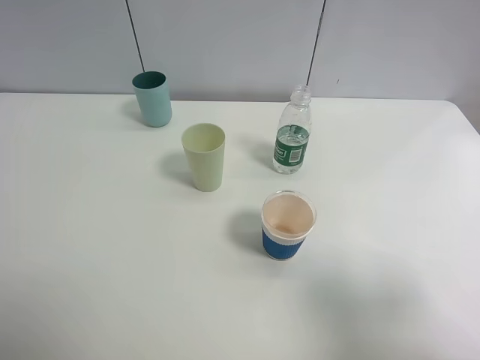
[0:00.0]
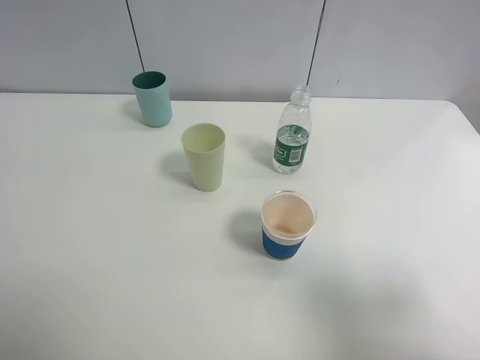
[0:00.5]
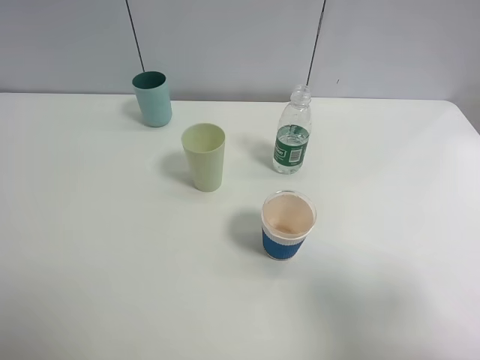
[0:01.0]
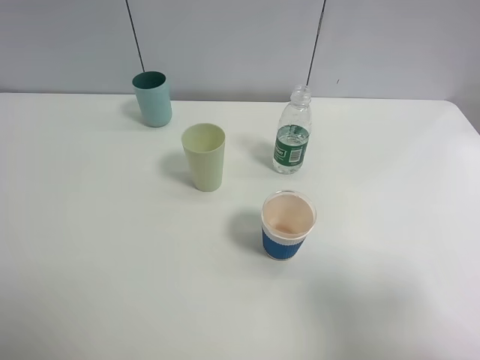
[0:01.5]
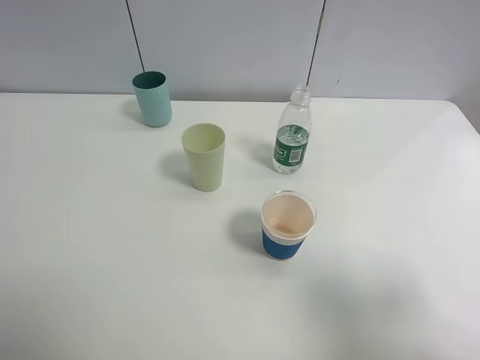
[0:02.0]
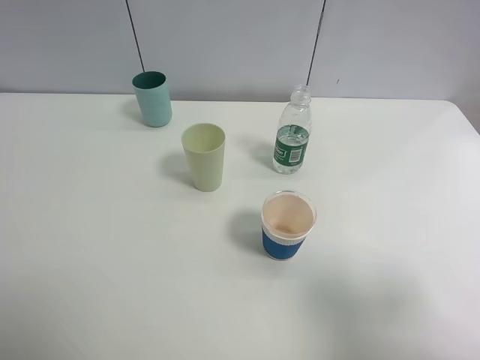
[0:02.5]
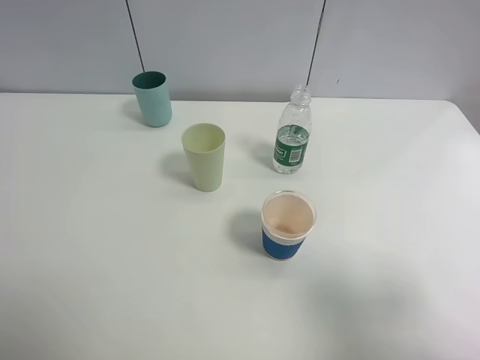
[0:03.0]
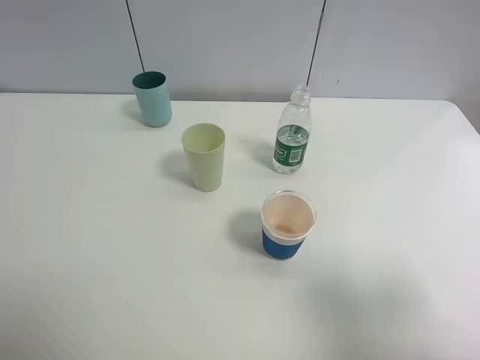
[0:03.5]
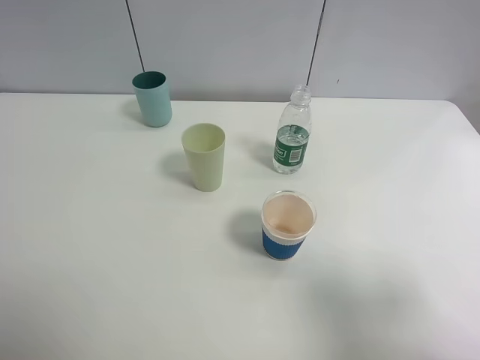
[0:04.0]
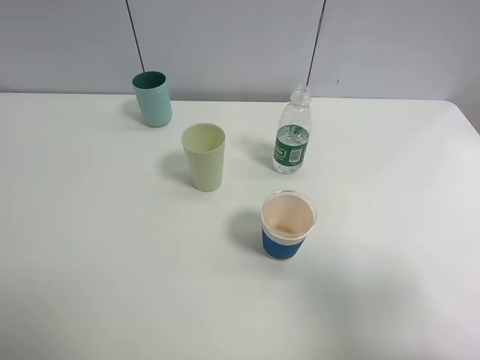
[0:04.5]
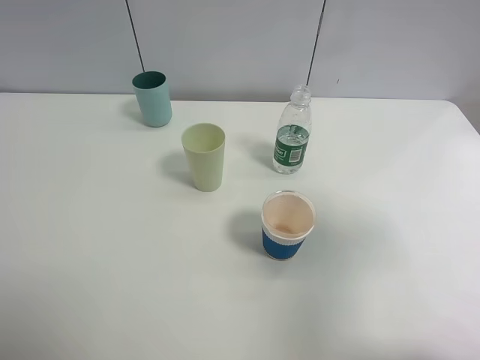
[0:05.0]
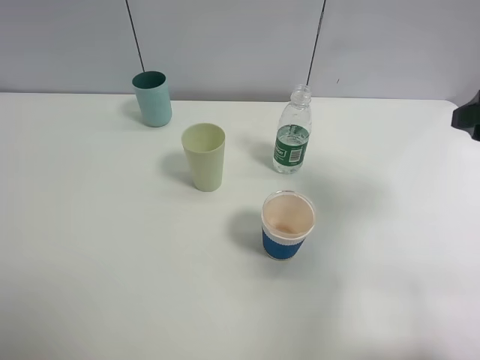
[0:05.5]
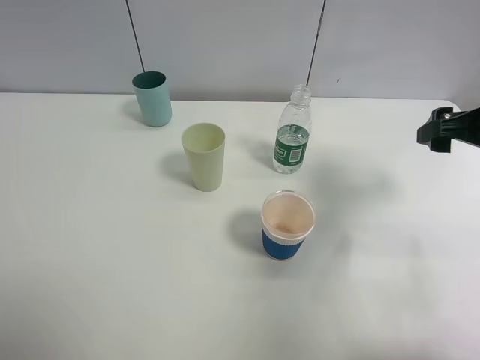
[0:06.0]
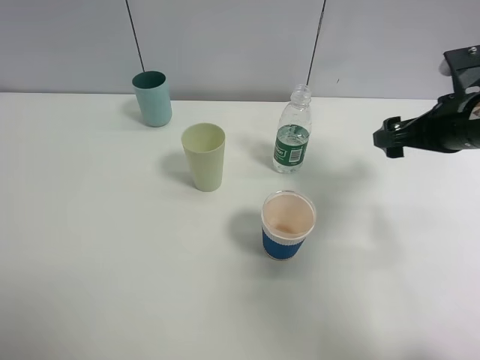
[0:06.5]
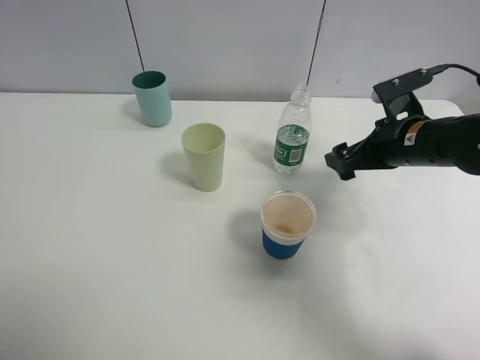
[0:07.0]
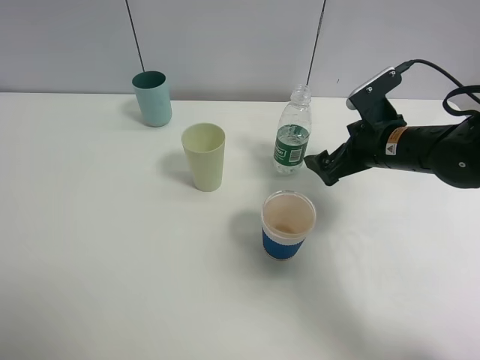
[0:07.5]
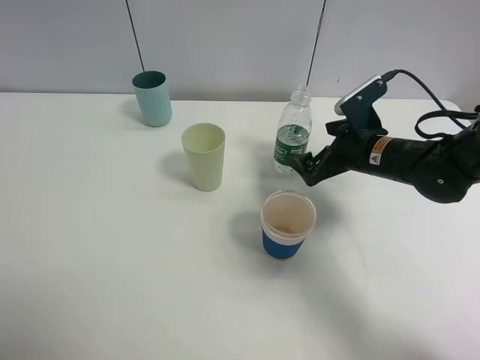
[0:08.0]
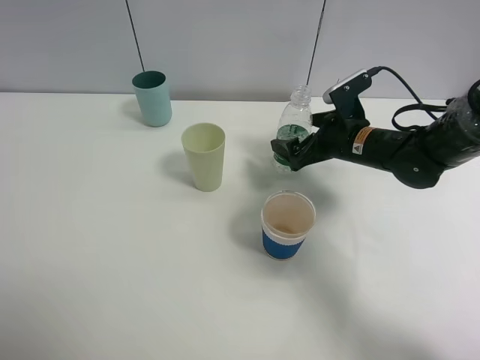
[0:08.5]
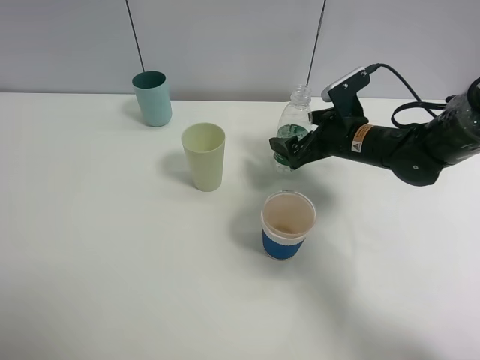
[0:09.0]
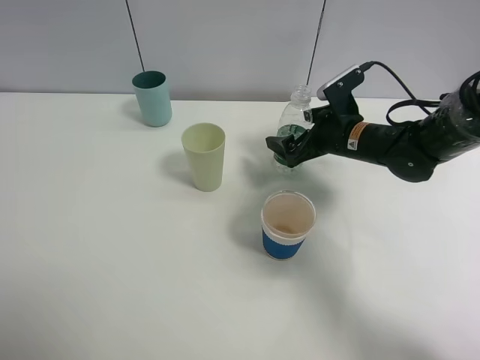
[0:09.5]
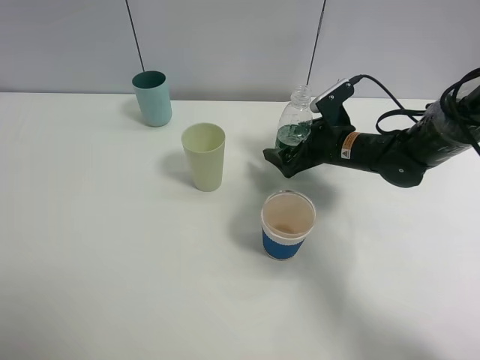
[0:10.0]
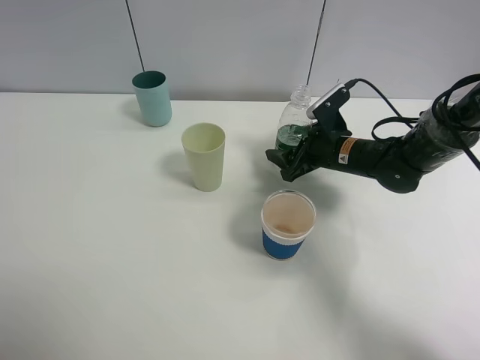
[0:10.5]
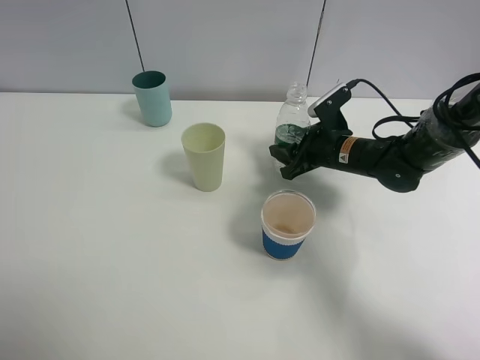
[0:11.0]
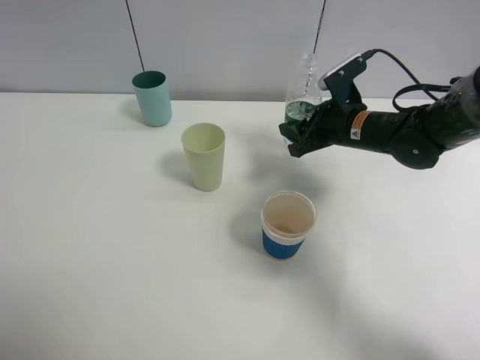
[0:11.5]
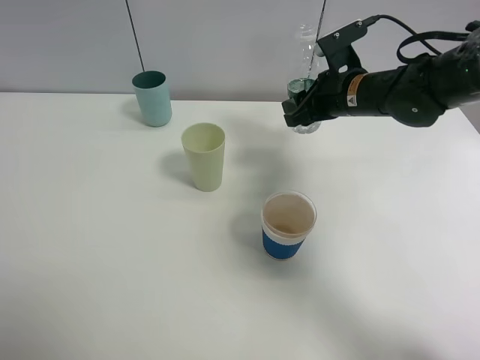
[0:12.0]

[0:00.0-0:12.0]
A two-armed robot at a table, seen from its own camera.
Task of the whole recording: use a clamp to hold the bottle of the drink, pour the beverage into a random cup, then clamp the cup containing the drink and pour the drink into another random cup.
Step, 0:00.0 to 0:11.0: Pick up the water bottle with right gripper.
0:00.0 to 0:04.0: Both grippers stay about where they are.
0:04.0 to 0:06.0: The right gripper is displaced forward by approximately 25 cm.
0:06.0 to 0:08.0: The right gripper travels downward, to the left and forward by roughly 20 cm.
0:08.0 to 0:10.0: The right gripper moves about 5 cm.
0:10.0 to 0:12.0: The right gripper shifts approximately 10 cm upward, and closes.

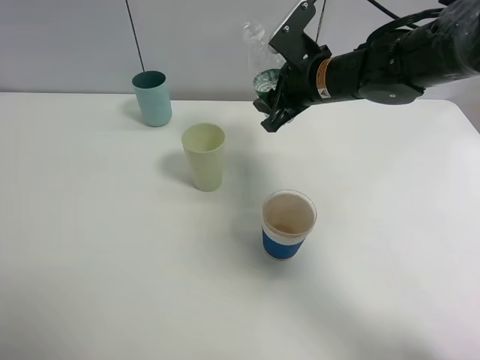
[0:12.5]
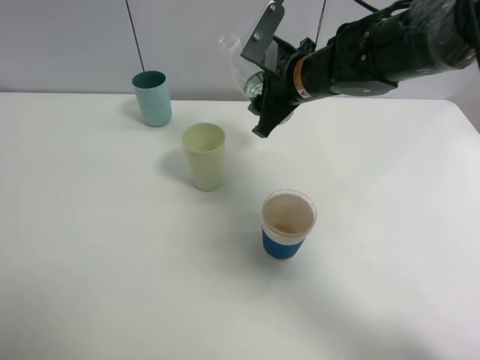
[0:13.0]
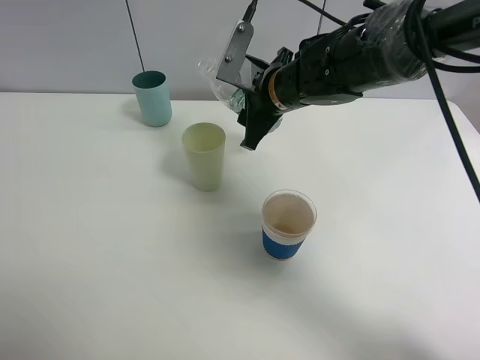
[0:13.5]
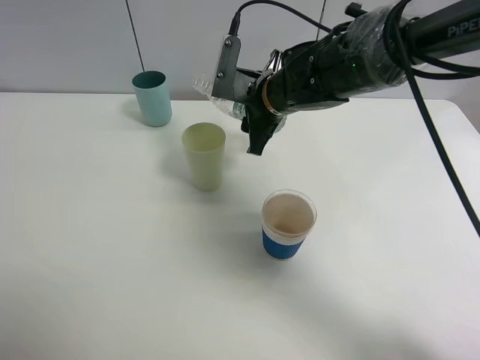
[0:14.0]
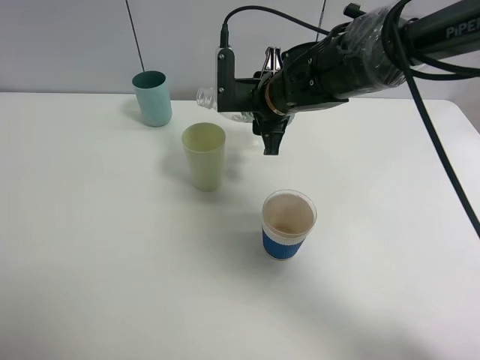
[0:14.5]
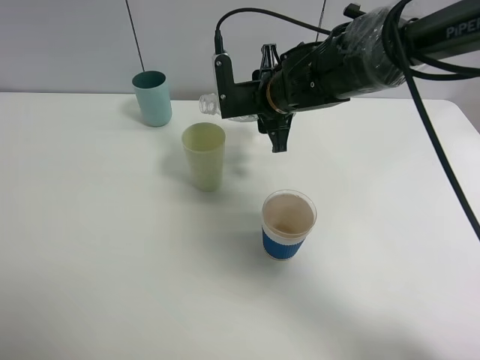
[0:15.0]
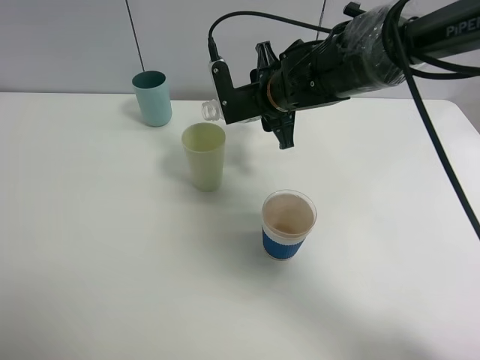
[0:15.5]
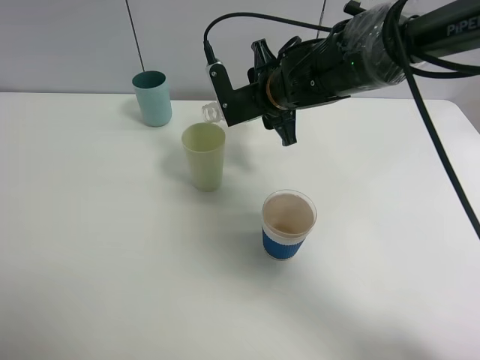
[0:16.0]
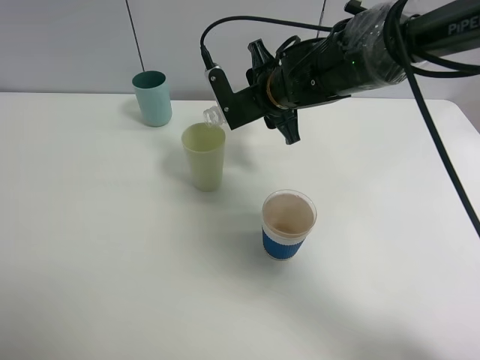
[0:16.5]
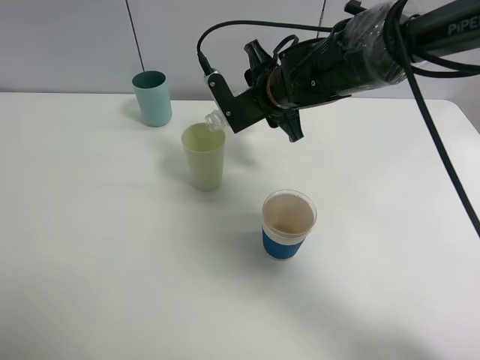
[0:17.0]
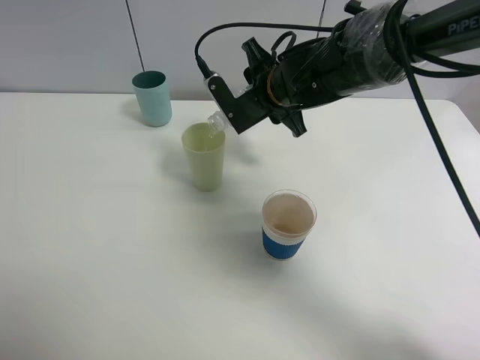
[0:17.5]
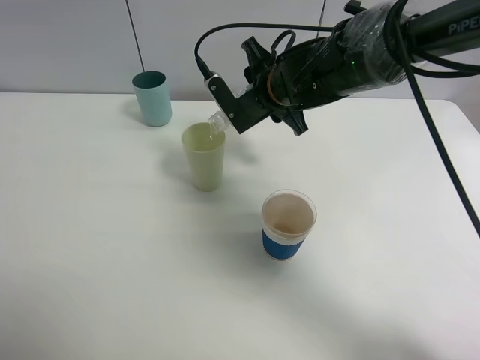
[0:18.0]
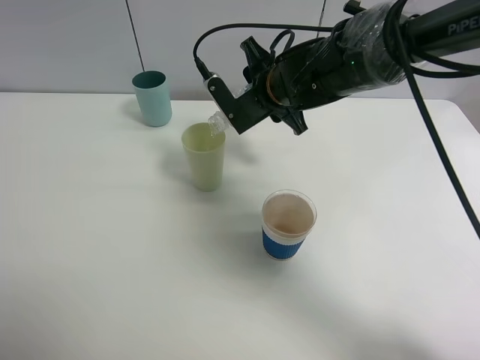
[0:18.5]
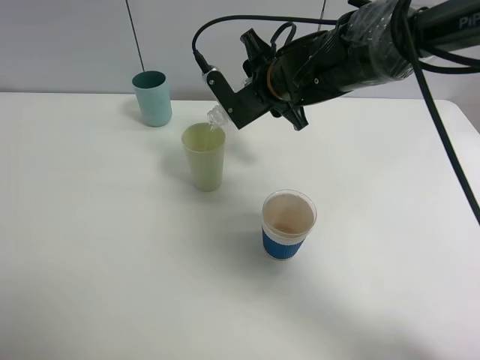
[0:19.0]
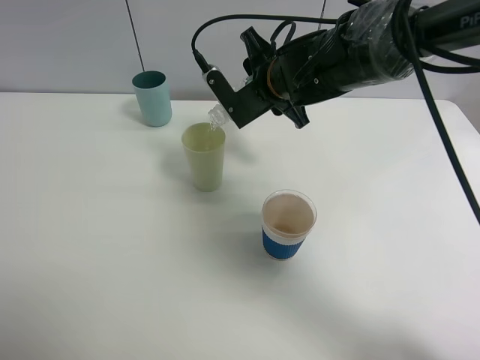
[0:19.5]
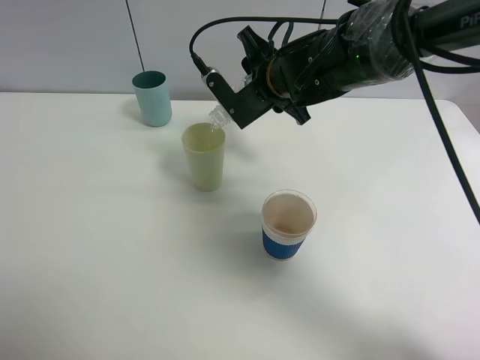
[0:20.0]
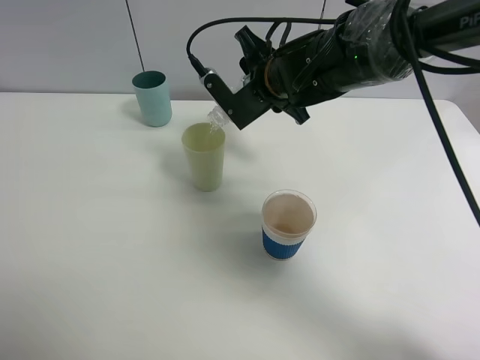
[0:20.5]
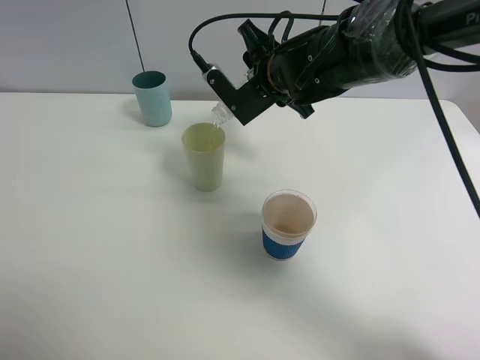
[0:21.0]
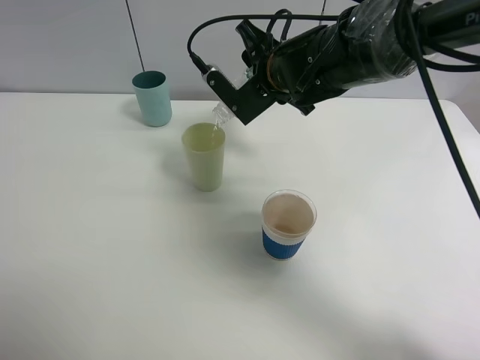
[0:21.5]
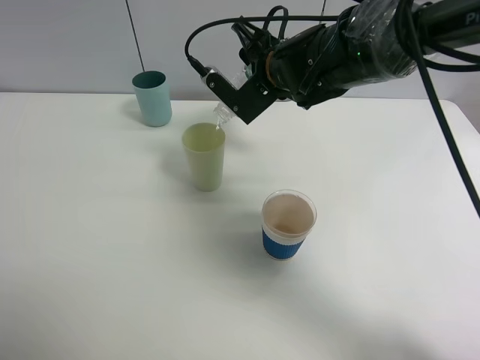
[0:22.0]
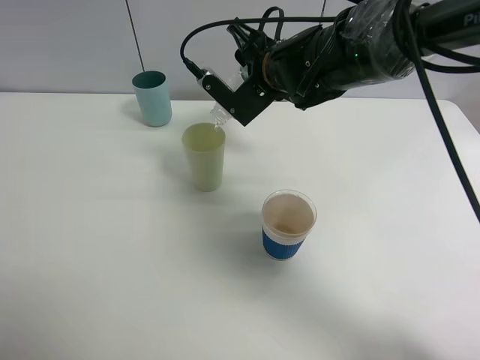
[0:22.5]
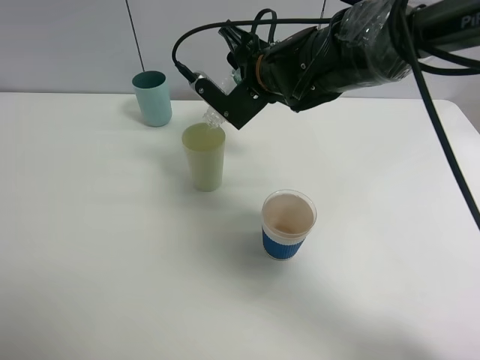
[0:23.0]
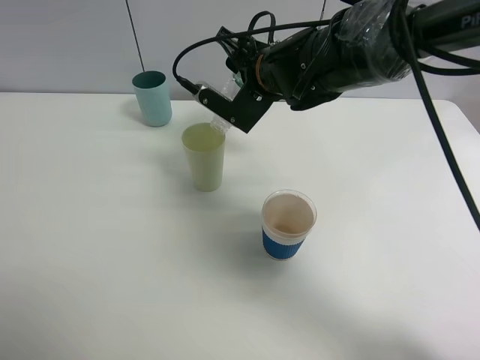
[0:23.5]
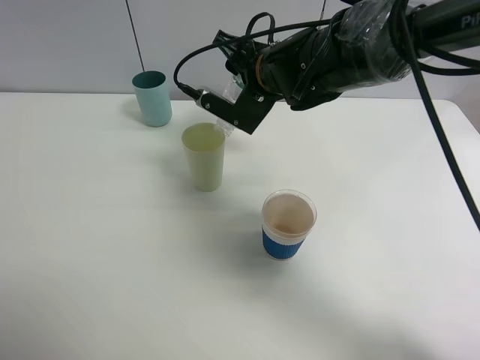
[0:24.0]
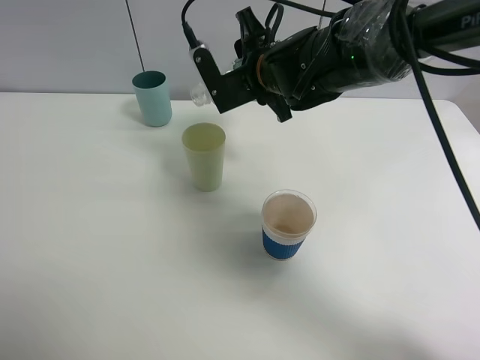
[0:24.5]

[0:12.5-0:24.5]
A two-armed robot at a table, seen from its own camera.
Task of the whole recording: use a clamp to hold the bottle of the drink, pour the beverage into a random cup, then clamp the cup containing the drink and pour the drink into another random cup.
Step, 0:12.5 to 0:24.5: Pour water into the green plastic cup with right gripper.
0:12.5 to 0:14.5: The right gripper travels to the left by roughly 5 cm.
0:16.5 to 0:20.5: There are only small adjustments of the grippers.
0:20.5 to 0:22.5: The grippers make only small movements.

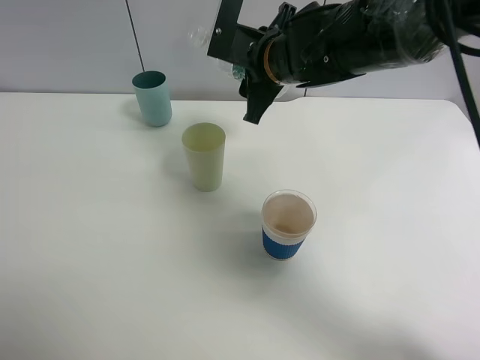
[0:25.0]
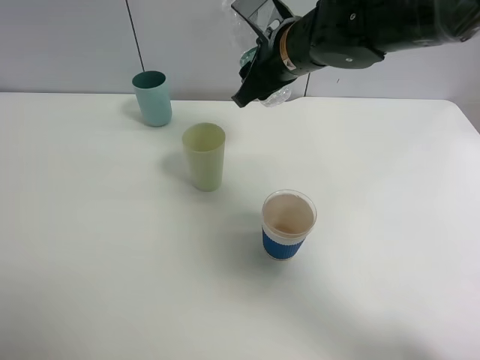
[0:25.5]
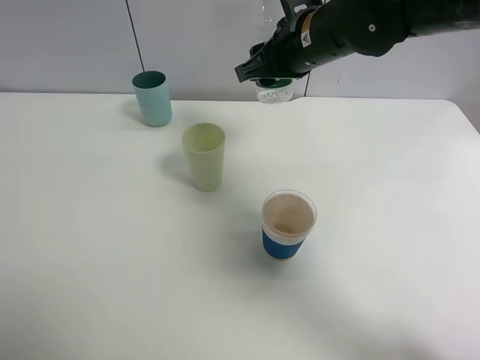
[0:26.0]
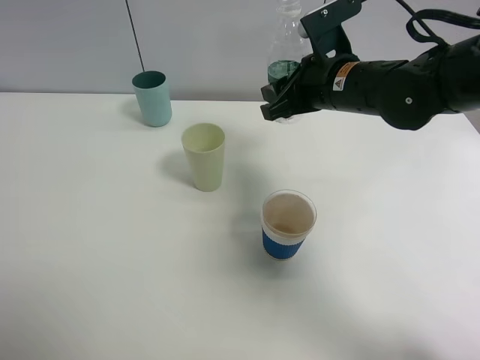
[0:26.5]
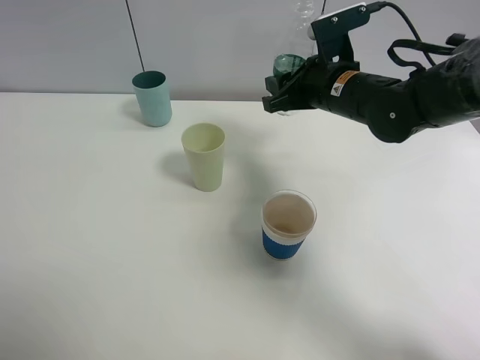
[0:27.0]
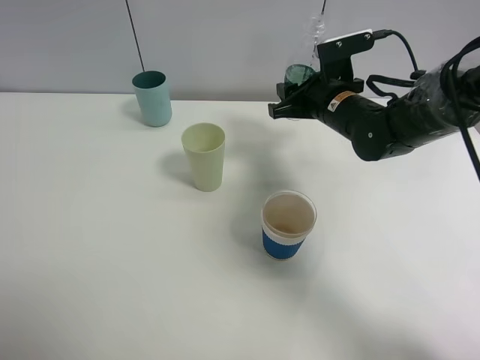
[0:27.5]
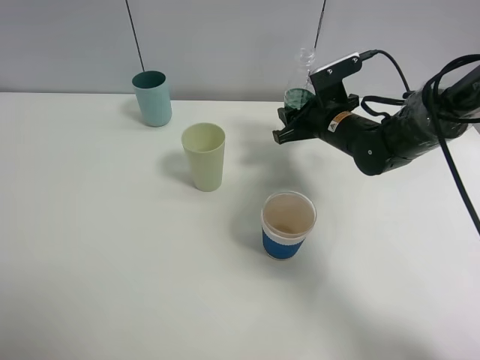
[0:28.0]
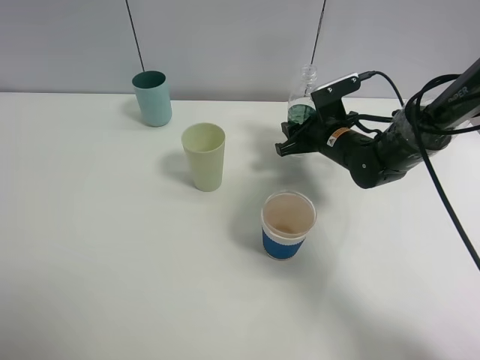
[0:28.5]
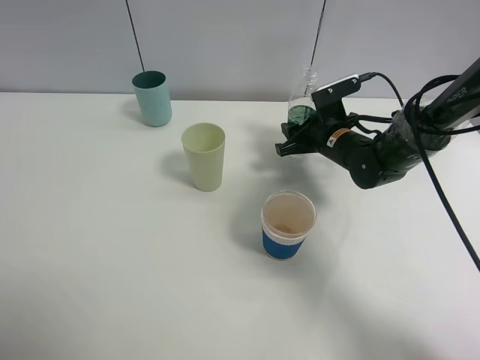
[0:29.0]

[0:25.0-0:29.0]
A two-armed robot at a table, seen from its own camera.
Task of the whole recording: use a clamp to hold the bottle of the drink, pour the beverage into a random cup, then clamp the cup containing the drink and pour the drink into another random cup.
0:25.0 to 0:27.0: The right gripper goes approximately 10 cm to the right.
0:27.0 to 0:29.0: The right gripper travels downward by some 10 cm.
